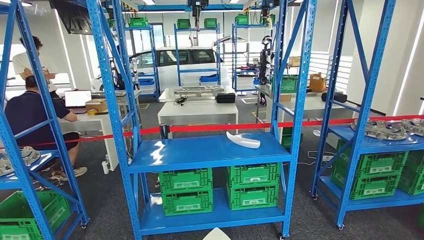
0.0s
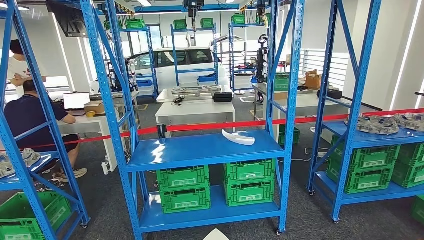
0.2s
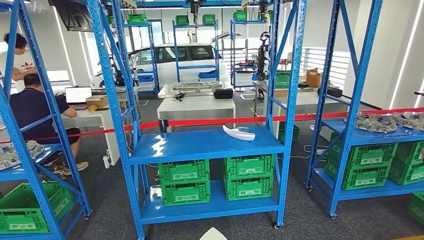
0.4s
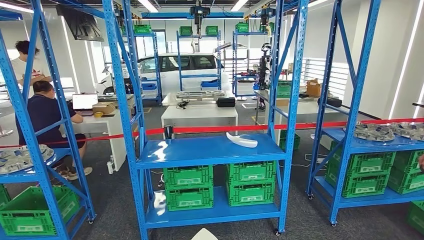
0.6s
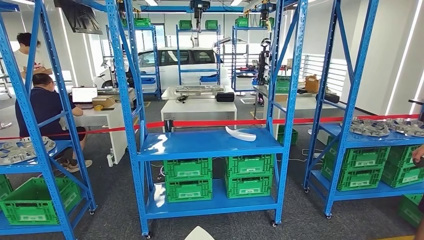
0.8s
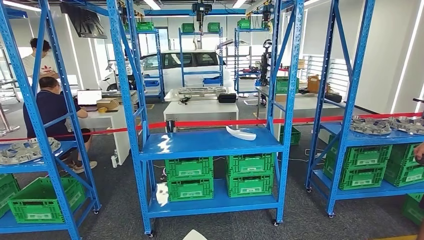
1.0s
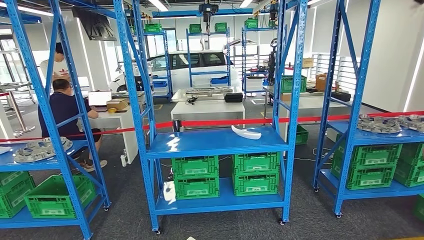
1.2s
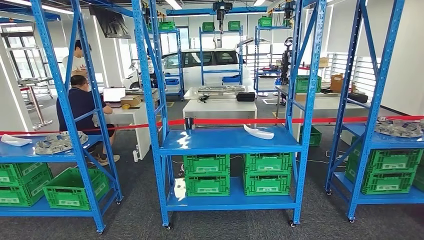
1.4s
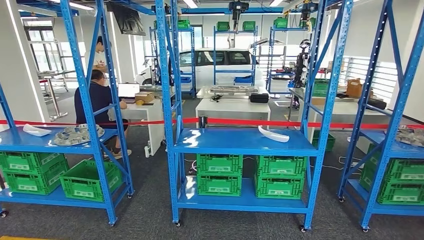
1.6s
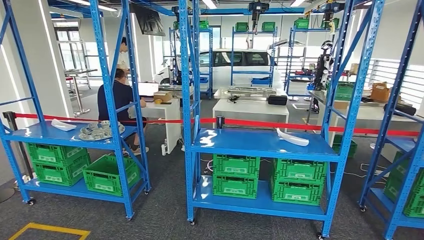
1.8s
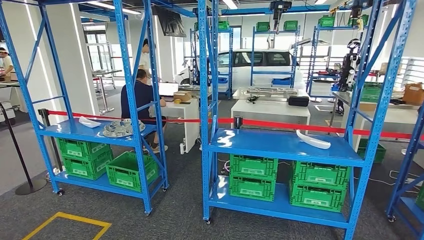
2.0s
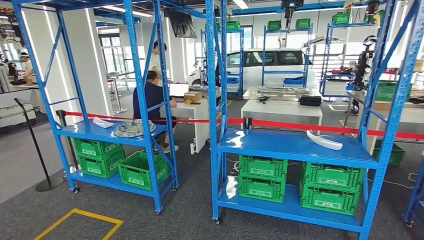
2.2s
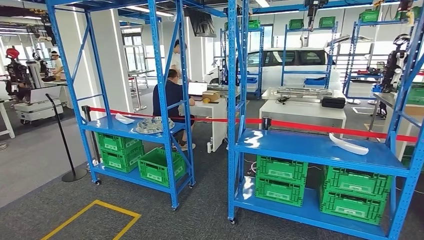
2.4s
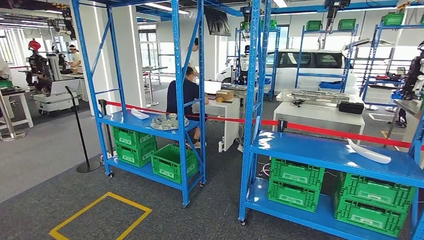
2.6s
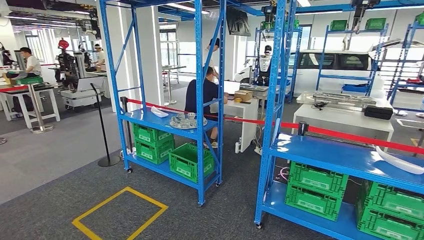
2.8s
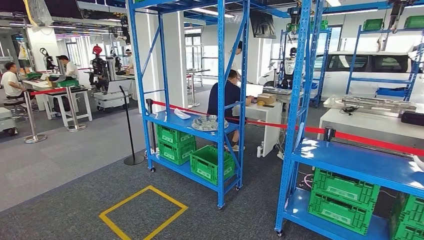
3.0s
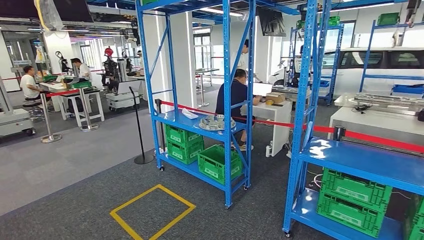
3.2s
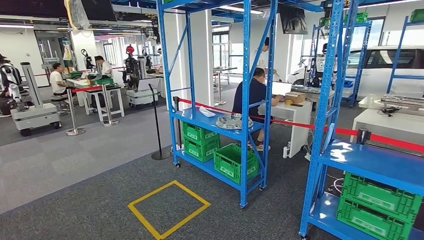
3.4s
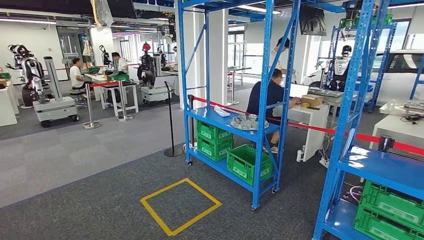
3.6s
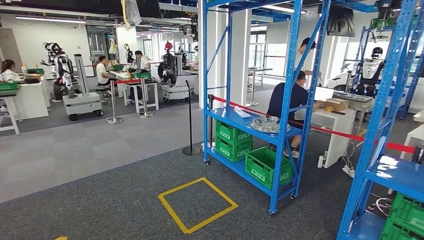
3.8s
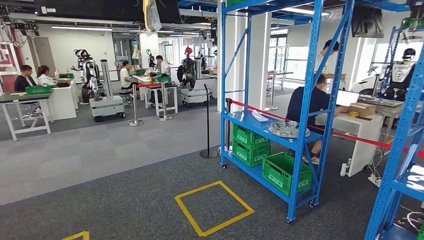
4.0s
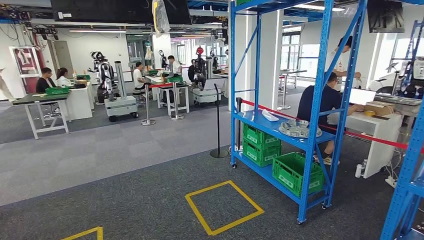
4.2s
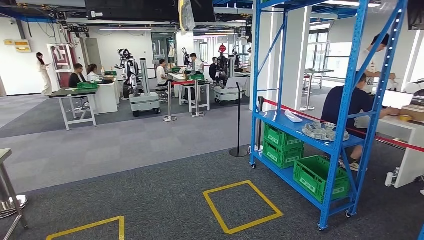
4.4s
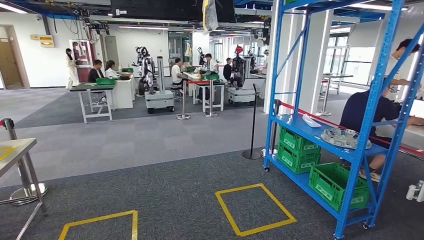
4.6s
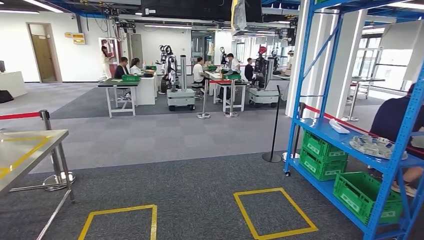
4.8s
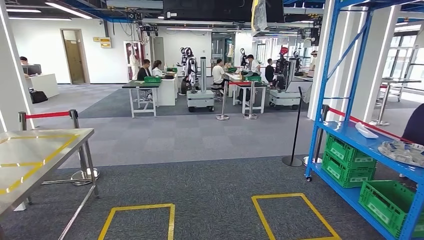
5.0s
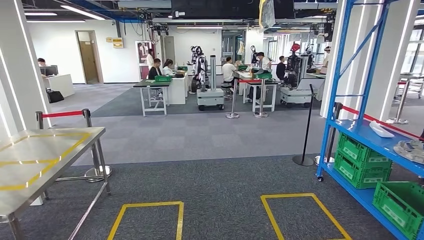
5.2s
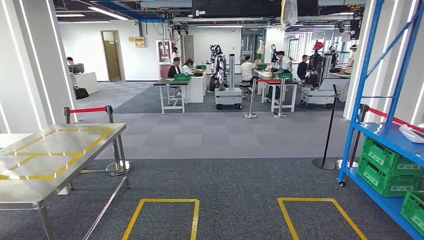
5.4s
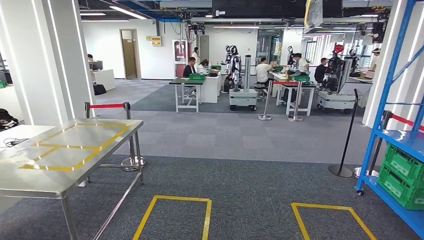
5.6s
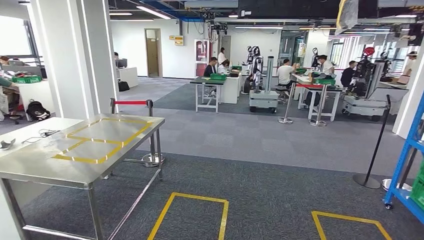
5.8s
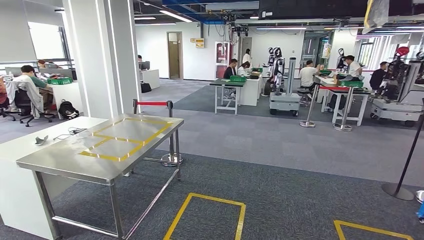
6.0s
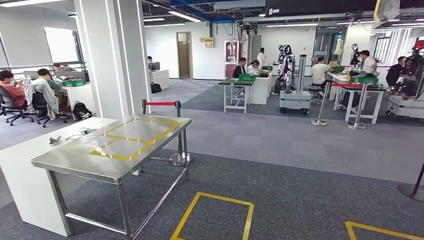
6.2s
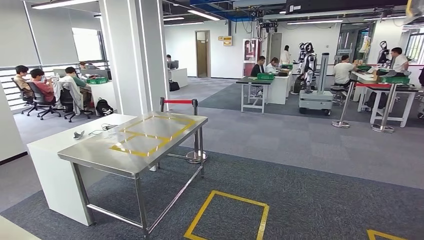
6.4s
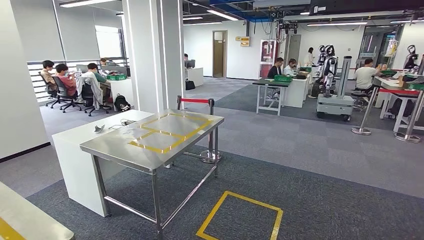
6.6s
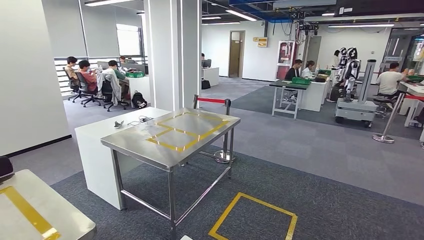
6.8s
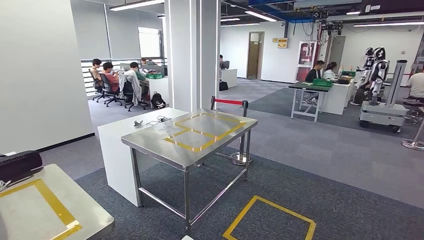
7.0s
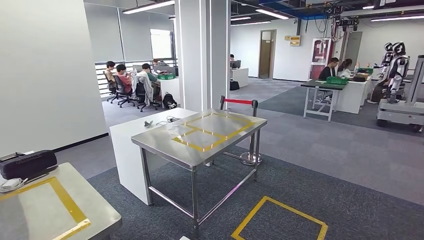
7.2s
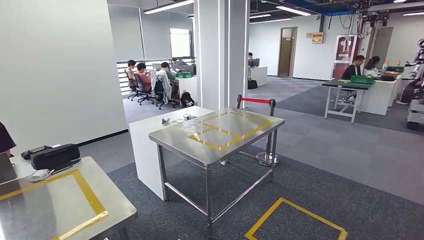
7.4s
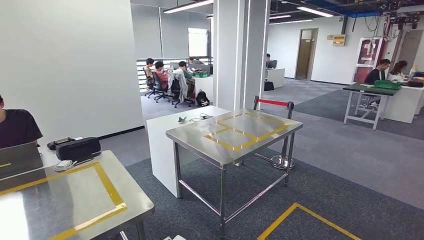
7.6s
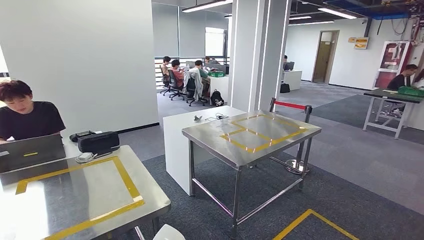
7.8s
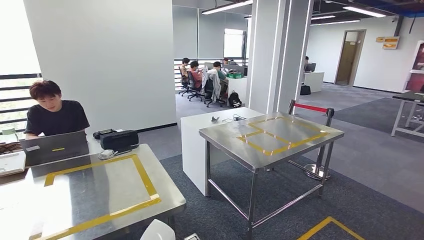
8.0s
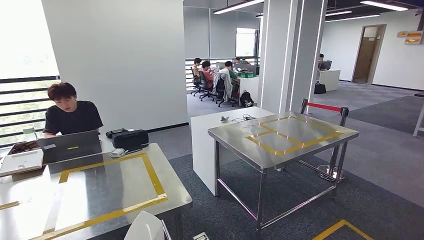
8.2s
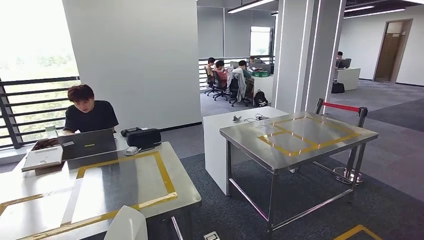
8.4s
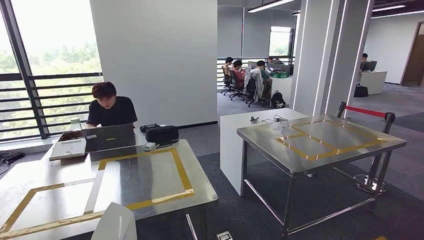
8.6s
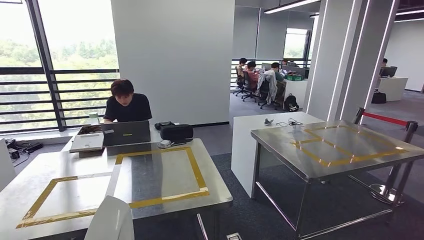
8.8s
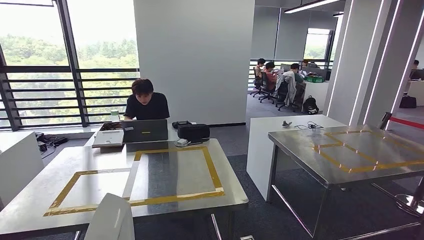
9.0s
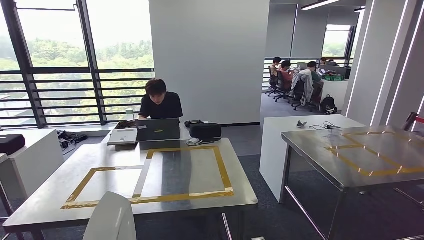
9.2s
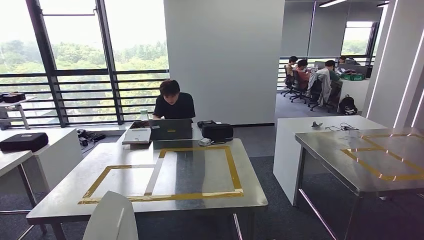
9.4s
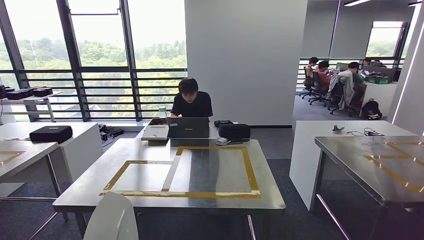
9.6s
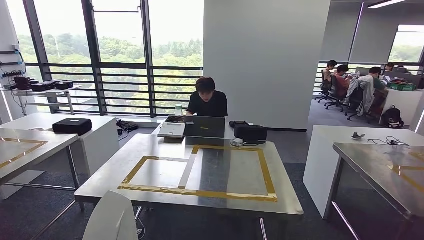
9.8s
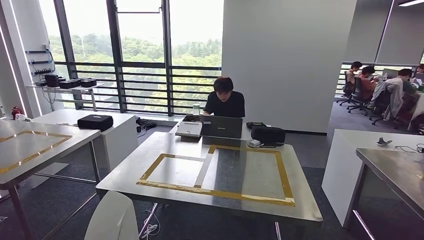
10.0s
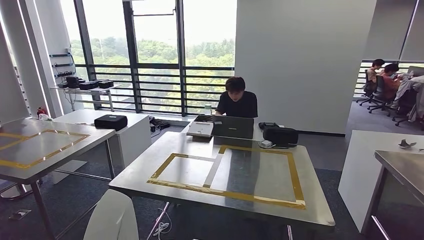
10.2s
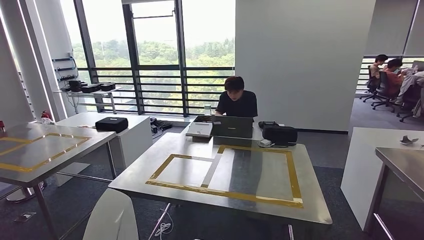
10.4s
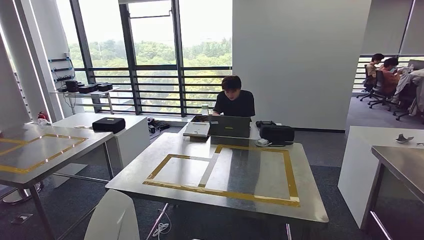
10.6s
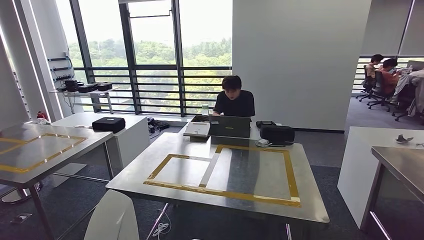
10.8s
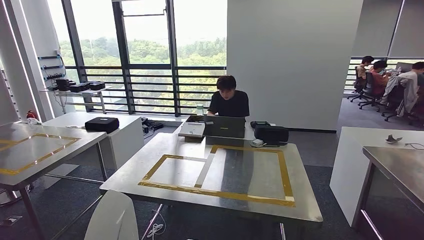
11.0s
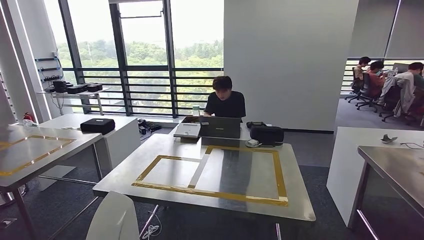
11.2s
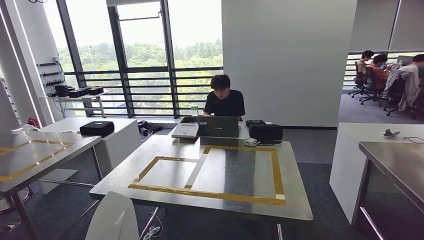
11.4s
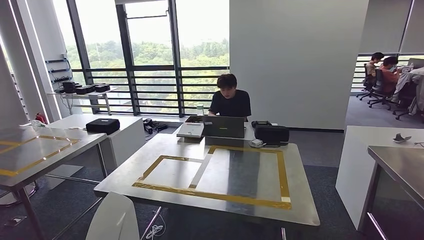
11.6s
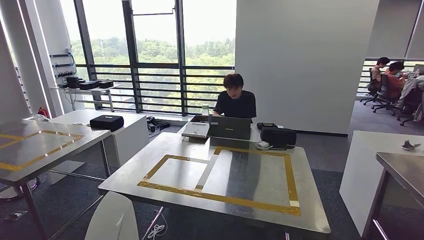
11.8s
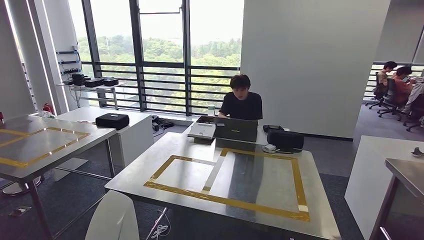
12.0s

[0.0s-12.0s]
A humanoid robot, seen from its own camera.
Step, 0.0s to 11.2s: Move the small parts to the workbench.

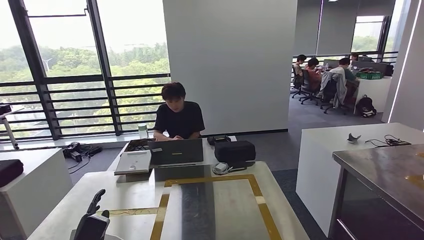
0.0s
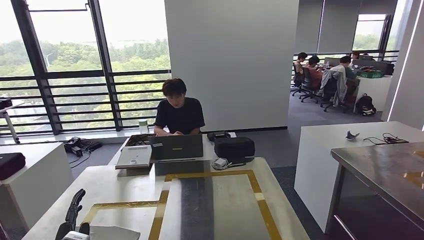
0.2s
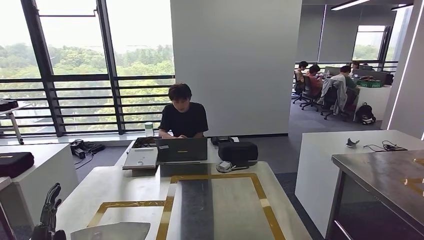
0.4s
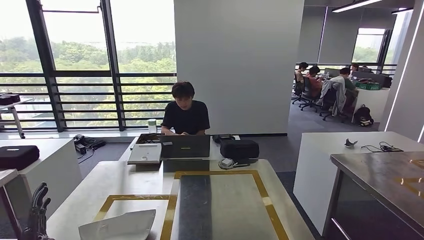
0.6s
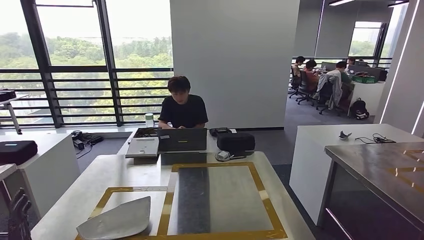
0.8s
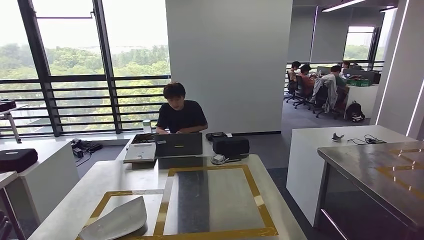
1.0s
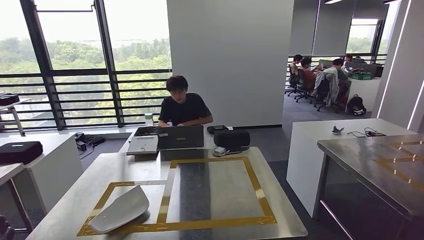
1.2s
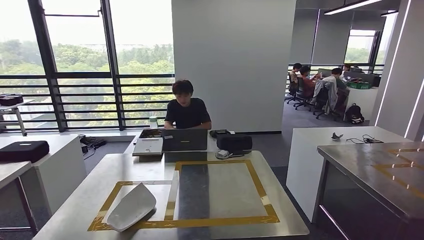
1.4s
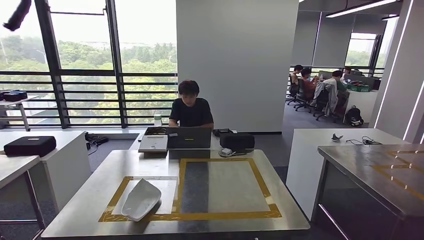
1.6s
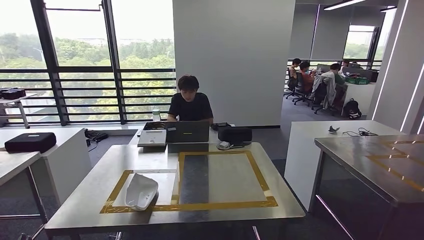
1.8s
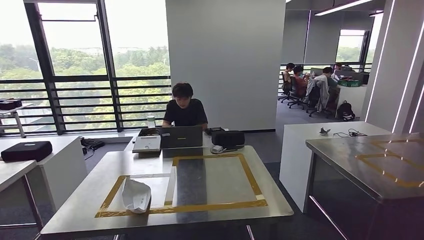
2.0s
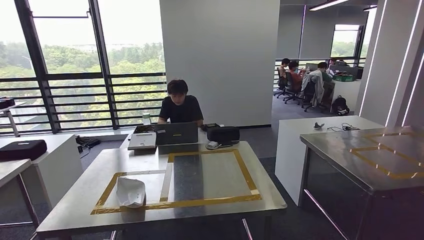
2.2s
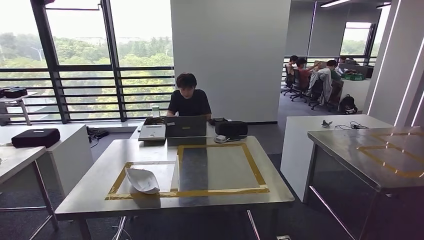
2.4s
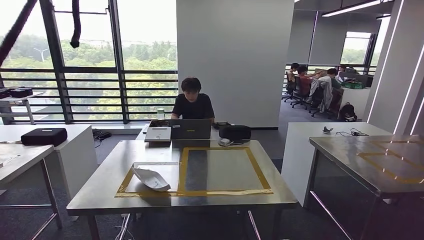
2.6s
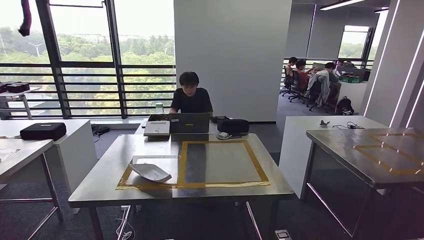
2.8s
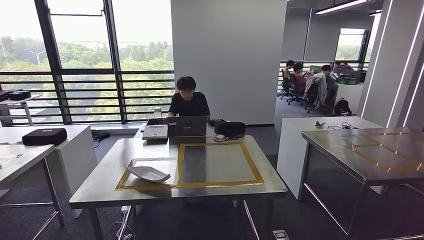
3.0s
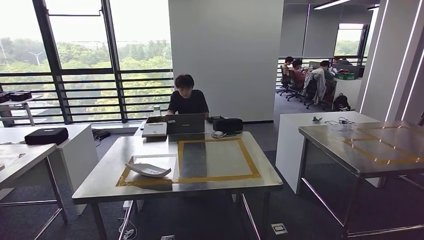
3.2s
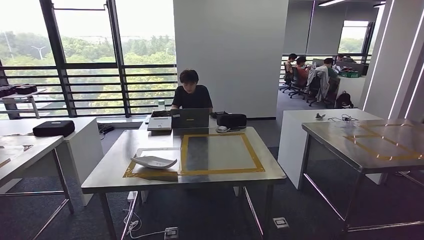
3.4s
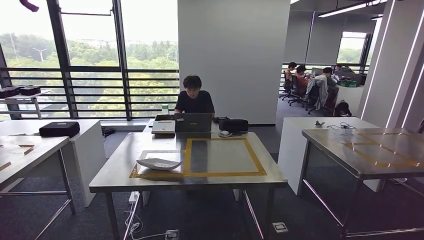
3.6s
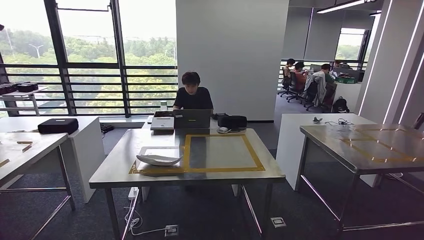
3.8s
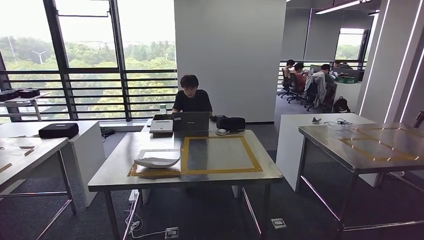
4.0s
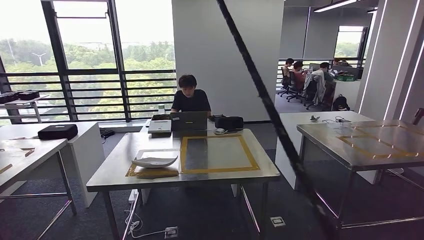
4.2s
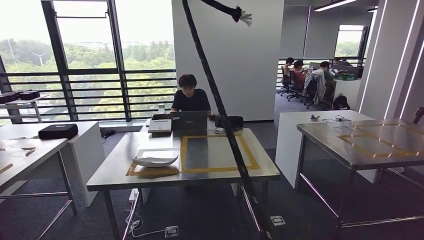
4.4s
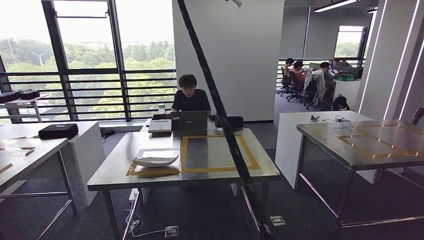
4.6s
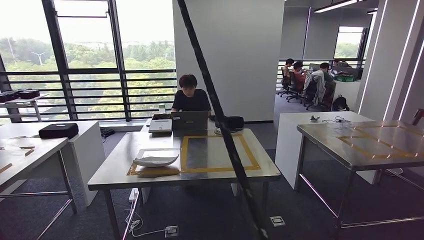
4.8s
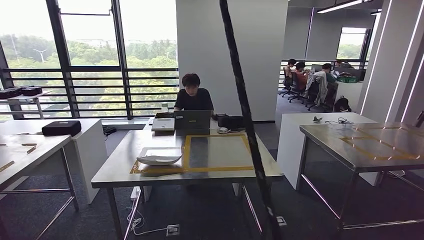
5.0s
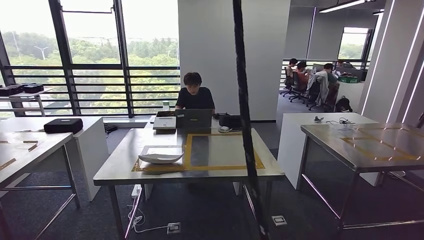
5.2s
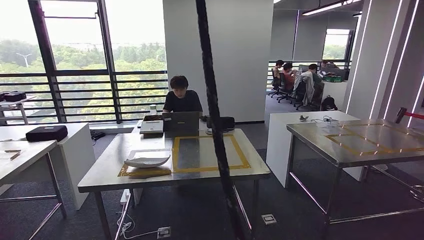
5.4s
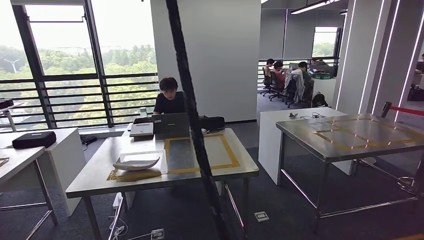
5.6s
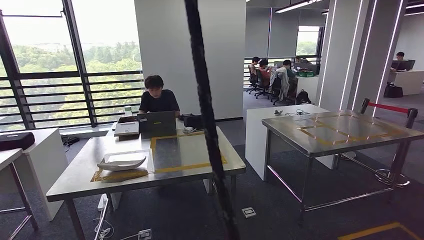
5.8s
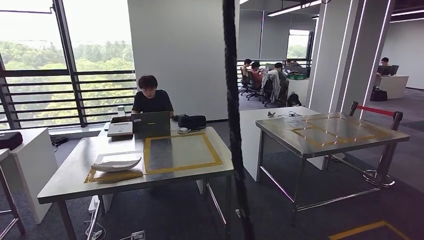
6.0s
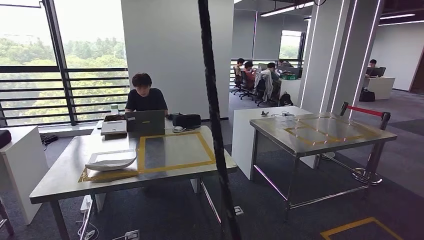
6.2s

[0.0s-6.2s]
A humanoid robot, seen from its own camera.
Step, 2.0s to 6.2s: Move to the initial position of the workbench.
